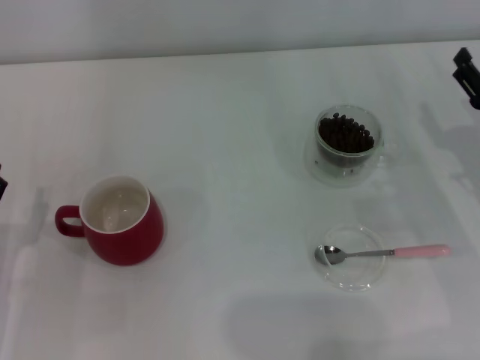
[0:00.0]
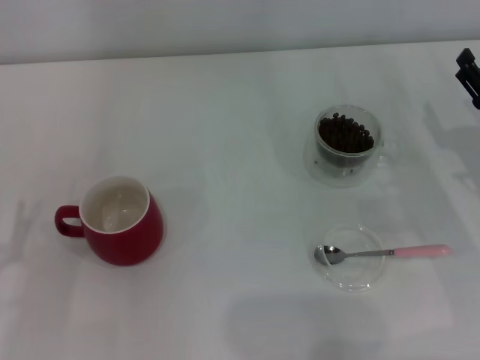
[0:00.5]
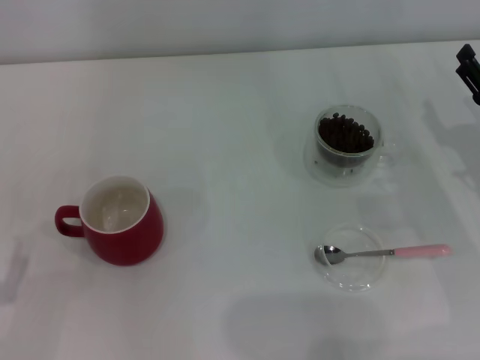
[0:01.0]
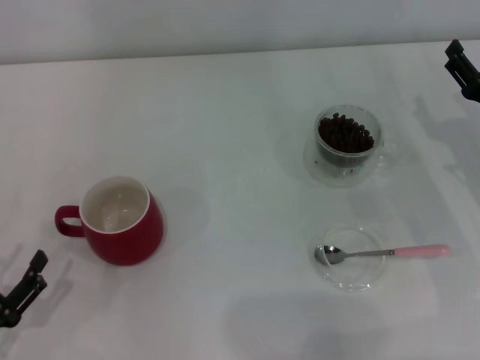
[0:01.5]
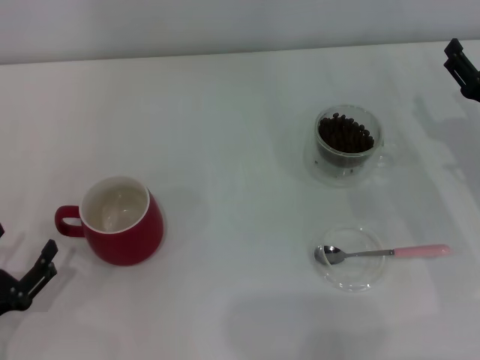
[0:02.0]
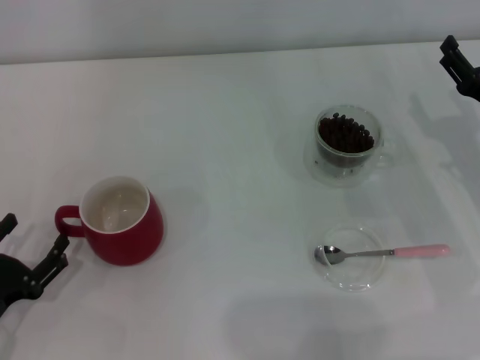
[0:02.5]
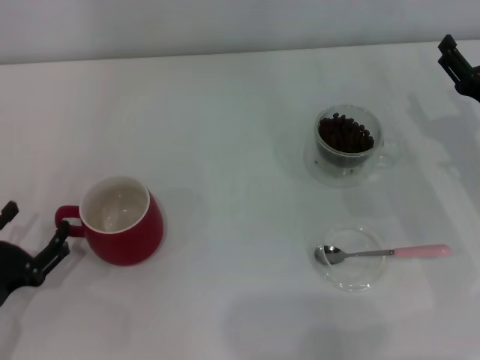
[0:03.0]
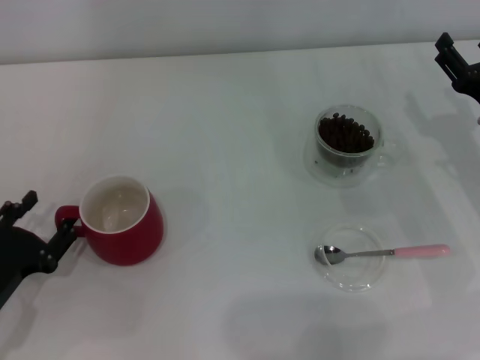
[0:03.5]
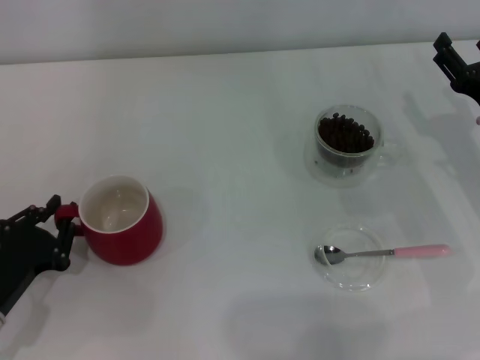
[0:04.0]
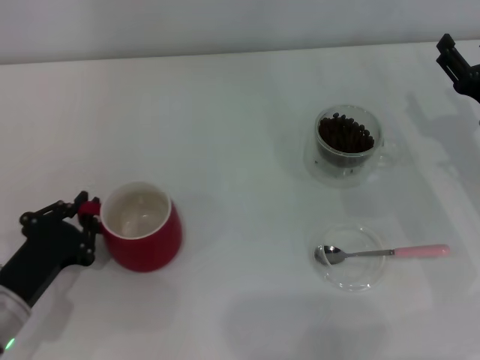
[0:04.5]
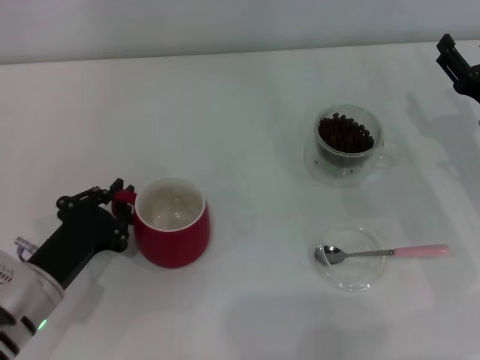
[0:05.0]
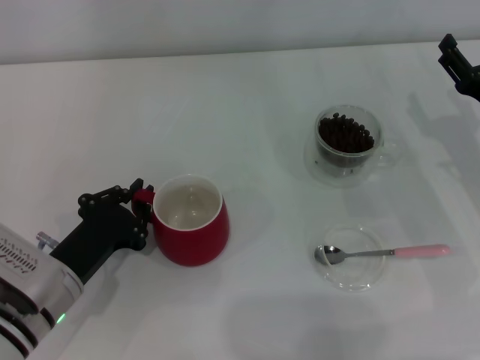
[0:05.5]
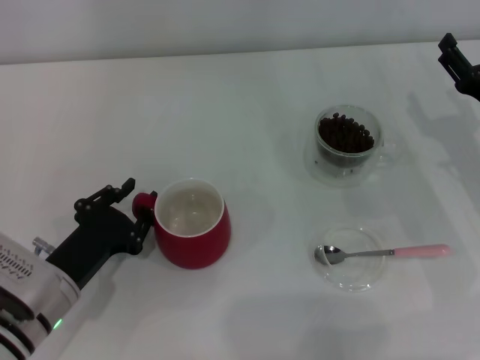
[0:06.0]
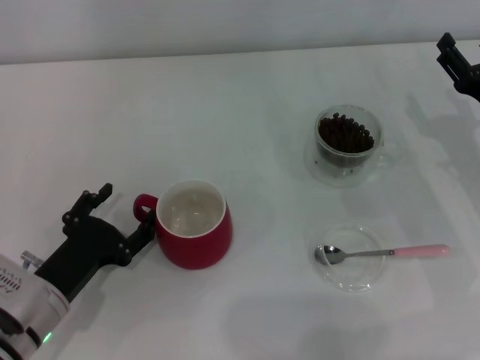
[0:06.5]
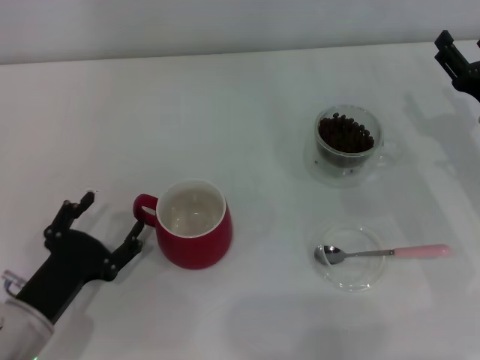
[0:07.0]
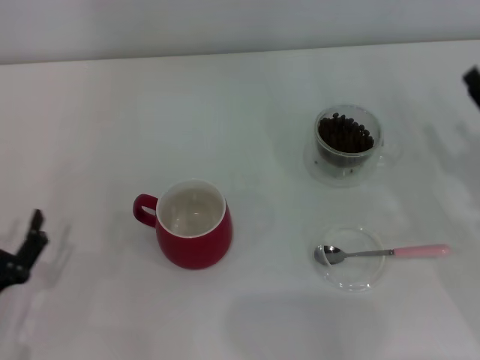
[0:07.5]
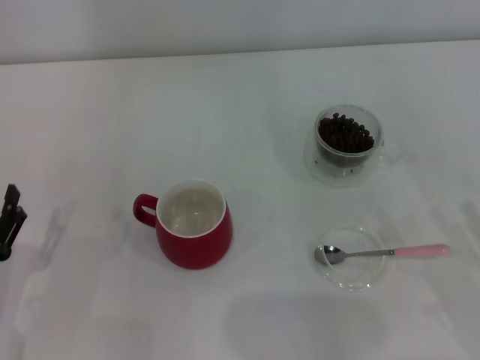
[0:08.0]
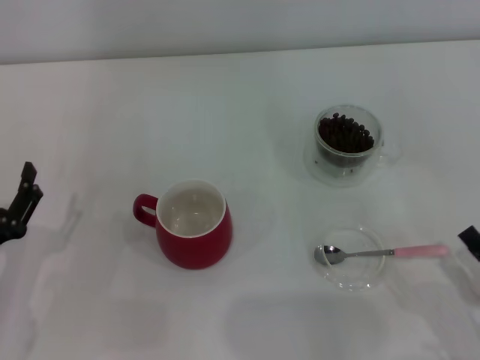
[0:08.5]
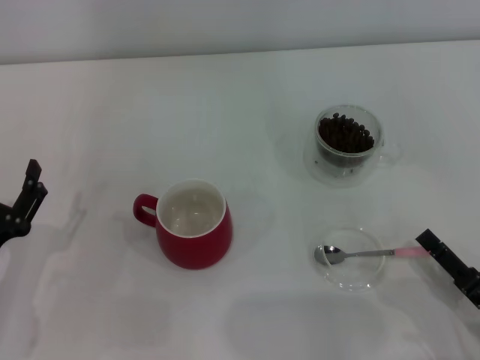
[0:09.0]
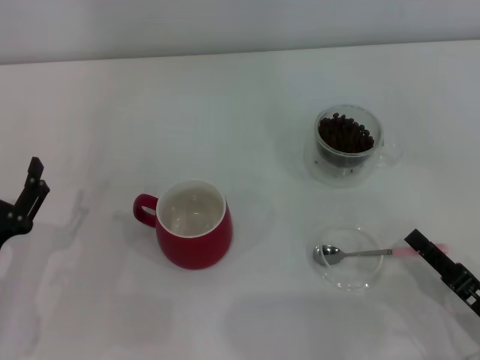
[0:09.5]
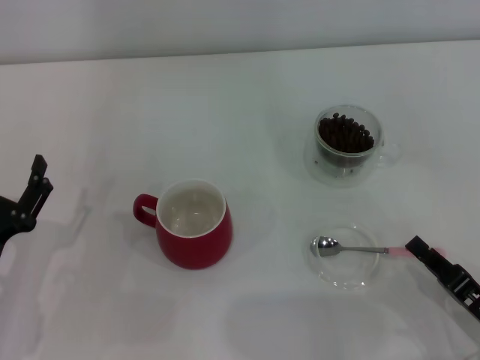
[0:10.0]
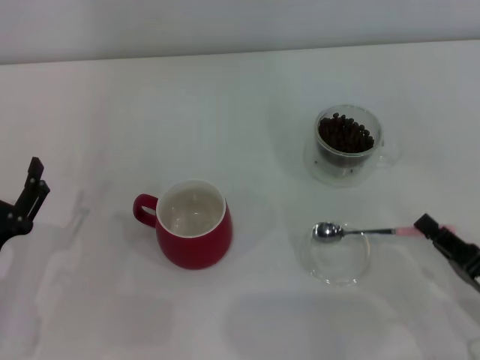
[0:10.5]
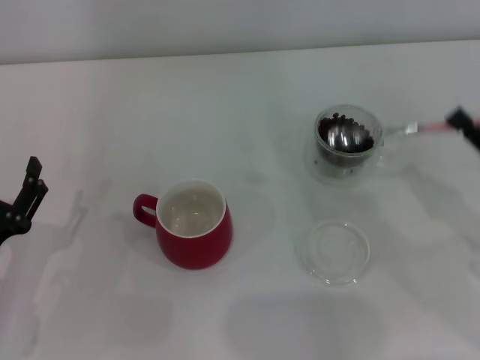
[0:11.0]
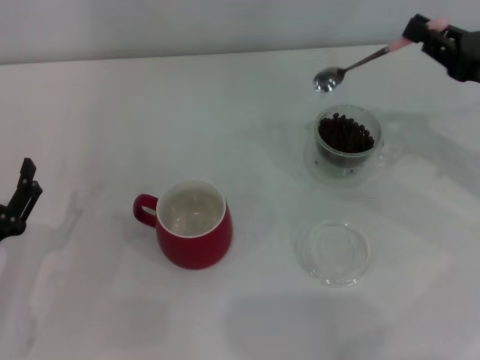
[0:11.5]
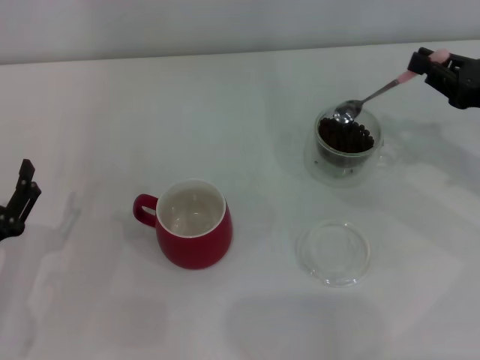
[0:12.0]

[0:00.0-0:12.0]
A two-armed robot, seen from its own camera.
Task of the whole recording: Use a pink spoon to take out the coffee beans from the glass and pour them into the red cup.
Step, 0:00.0 to 0:07.0: Move the cup to the center of view with the left gripper.
Step, 0:07.5 to 0:10.5: Pick up the spoon with the right gripper.
0:00.0 to 0:02.0: The left gripper shifts by about 5 cm.
0:02.0 to 0:04.0: The left gripper goes approximately 5 cm forward, and closes.
0:04.0 to 0:06.0: The left gripper shifts about 5 cm to the right.
0:06.0 to 0:08.0: The left gripper heads to the left and backward, covering some 10 cm, and opens its fingers. The right gripper travels backward by roughly 20 cm.
0:08.0 to 0:10.0: The right gripper moves roughly 5 cm, and closes up.
0:10.0 to 0:12.0: The right gripper heads forward and upward, covering about 20 cm.

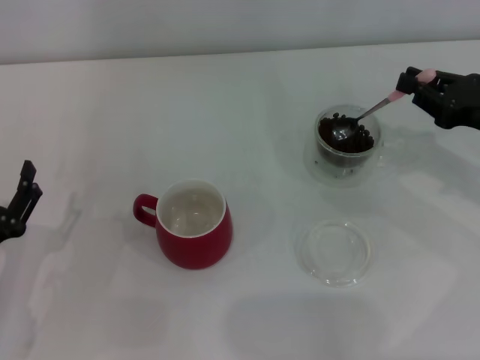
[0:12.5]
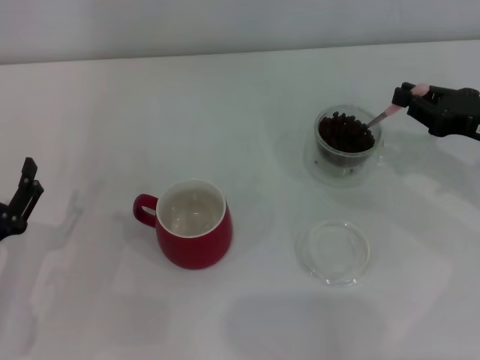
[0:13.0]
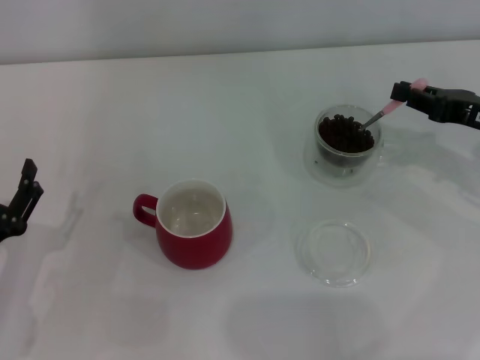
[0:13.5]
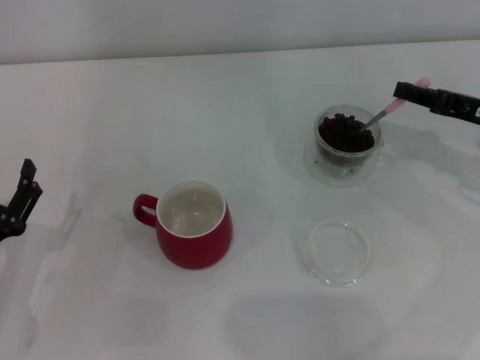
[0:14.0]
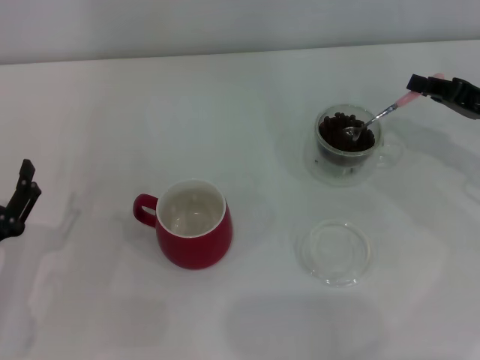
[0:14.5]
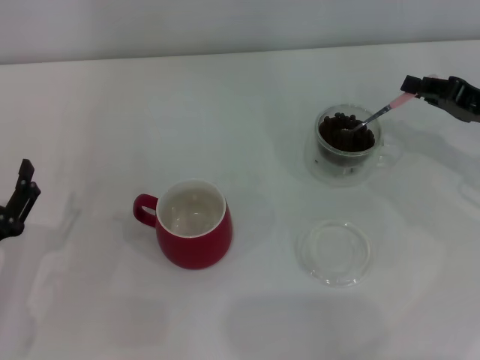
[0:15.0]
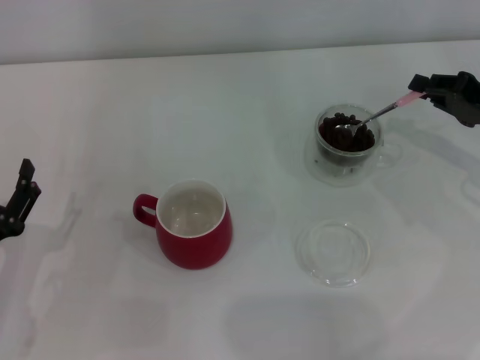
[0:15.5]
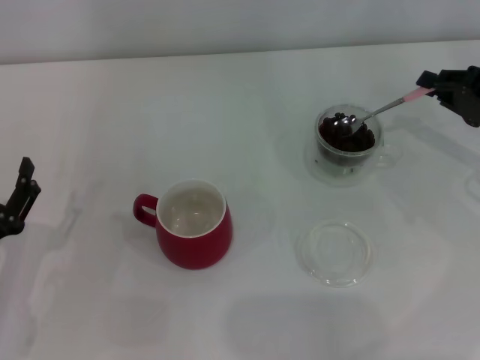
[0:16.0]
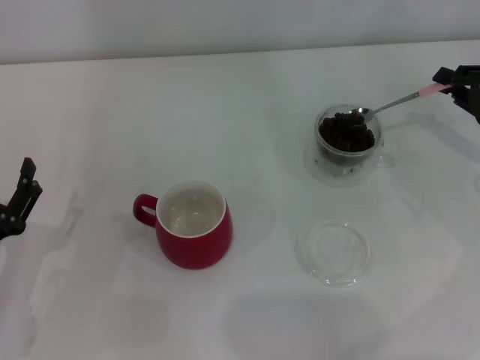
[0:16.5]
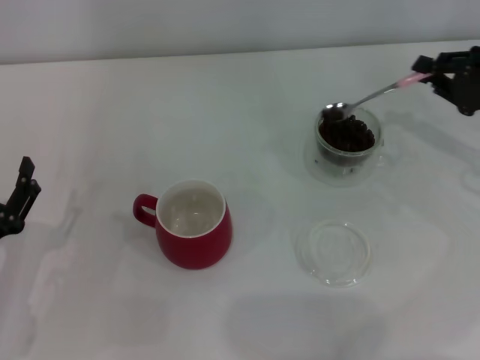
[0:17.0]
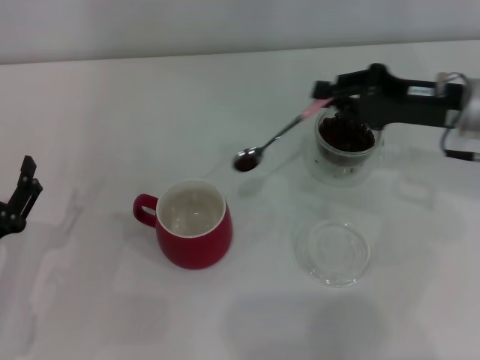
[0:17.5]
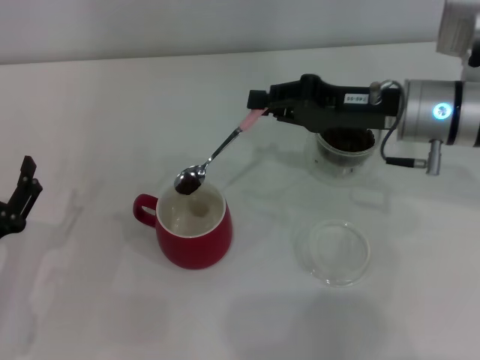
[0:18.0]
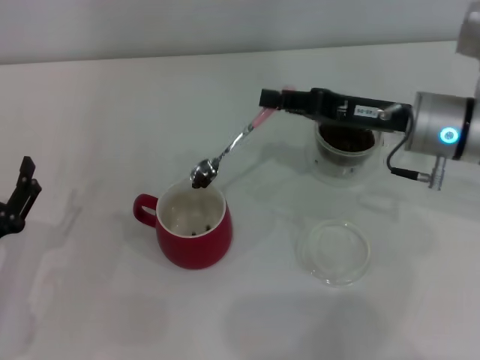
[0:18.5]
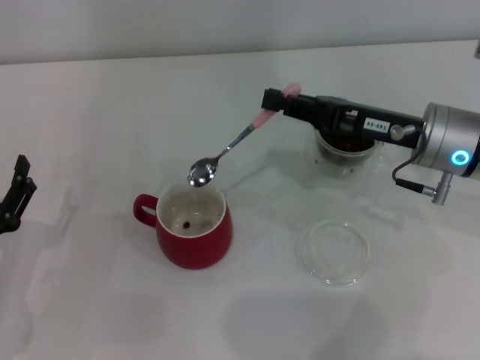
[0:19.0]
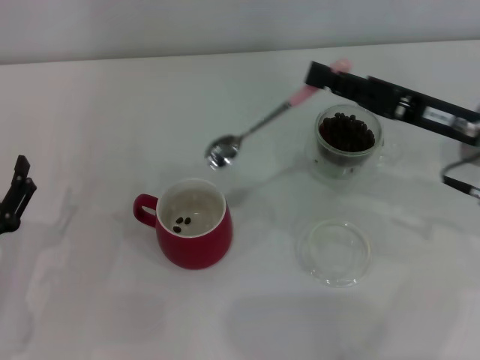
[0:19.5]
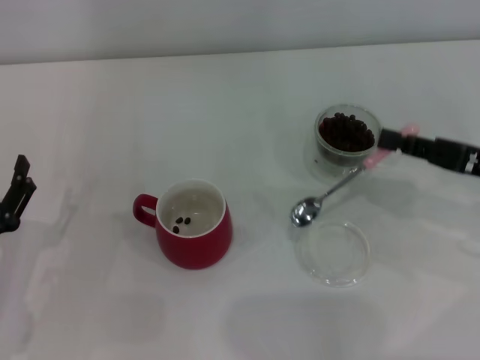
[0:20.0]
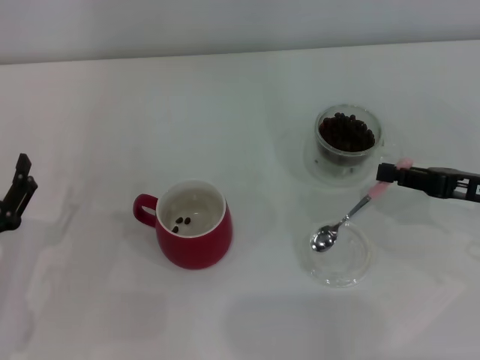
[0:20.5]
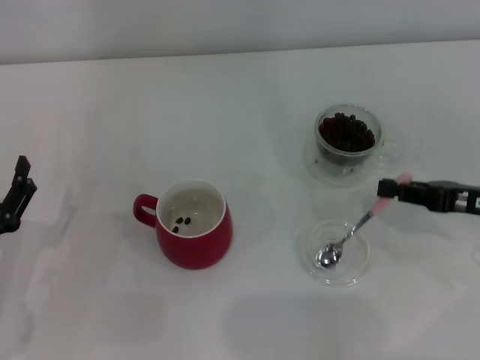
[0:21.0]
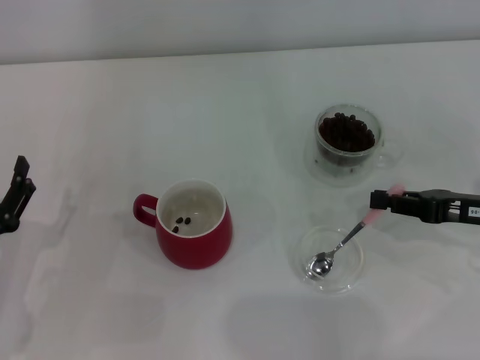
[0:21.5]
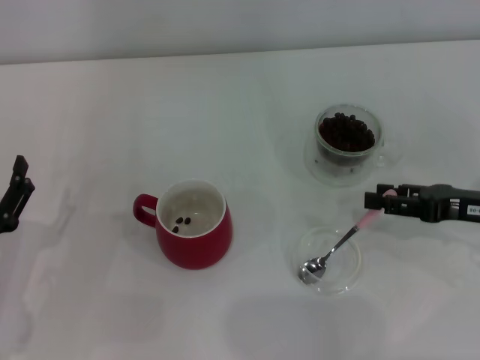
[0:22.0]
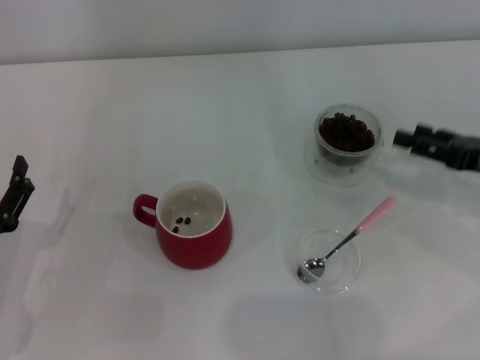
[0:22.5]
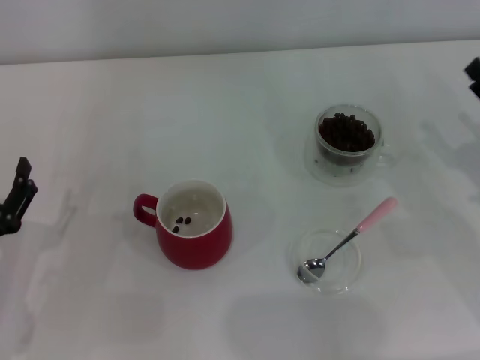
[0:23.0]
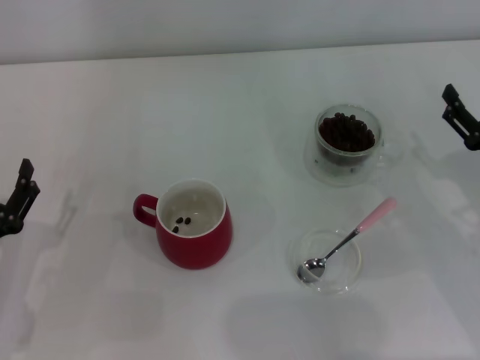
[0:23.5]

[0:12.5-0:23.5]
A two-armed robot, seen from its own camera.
Task of the whole recording: Use a pink spoon to take out the coffee beans from the glass and pour them into the red cup.
Step, 0:12.5 to 0:19.0: Scoop a spoonful of beans into the cup with the right gripper.
Step, 0:19.5 to 0:22.0: Place the spoon back in its original place with the right gripper.
0:14.5 to 0:16.0: The grippers stay close to where they were, moving slightly.
0:16.0 to 0:18.0: The right gripper moves to the left, about 15 cm.
0:18.0 to 0:20.0: The right gripper is displaced to the right and backward by some 15 cm.
0:20.0 to 0:21.5: The grippers move only a little.
0:21.5 to 0:23.5: The right gripper opens up.
